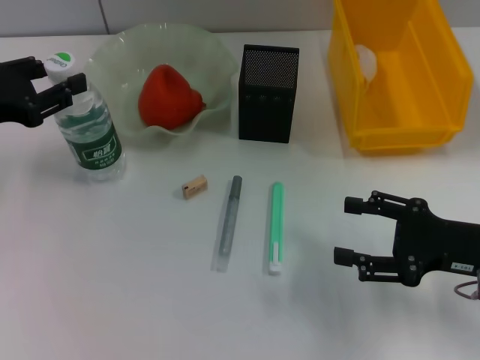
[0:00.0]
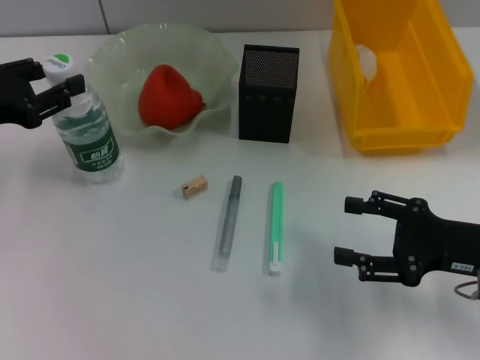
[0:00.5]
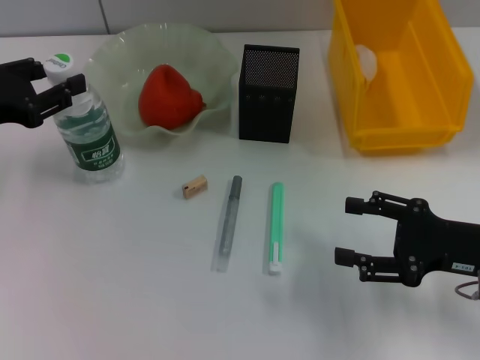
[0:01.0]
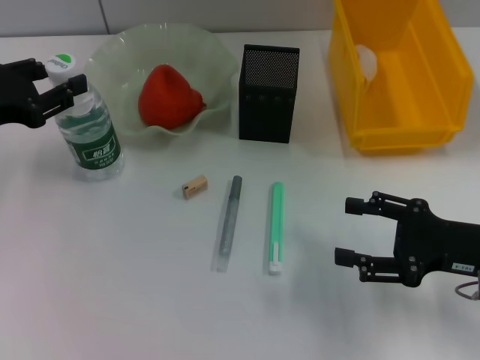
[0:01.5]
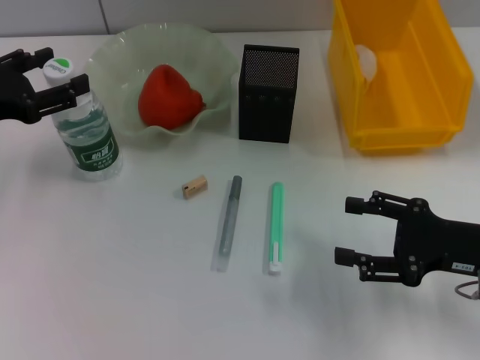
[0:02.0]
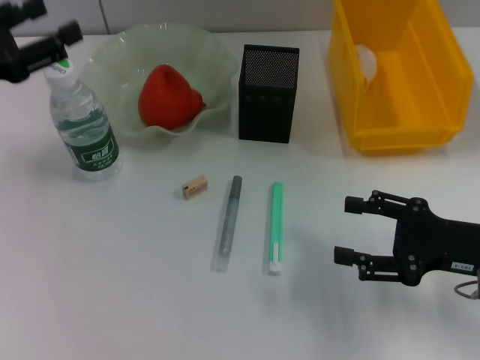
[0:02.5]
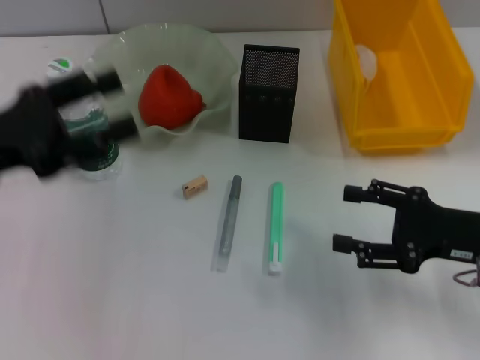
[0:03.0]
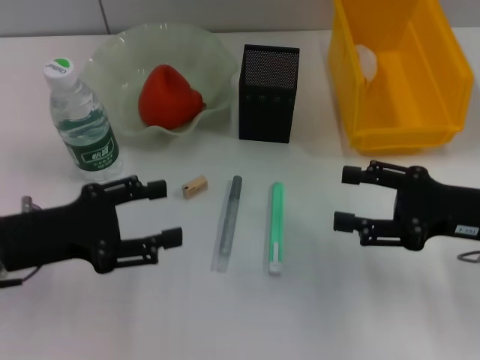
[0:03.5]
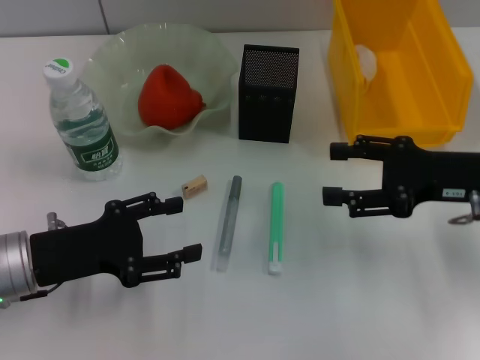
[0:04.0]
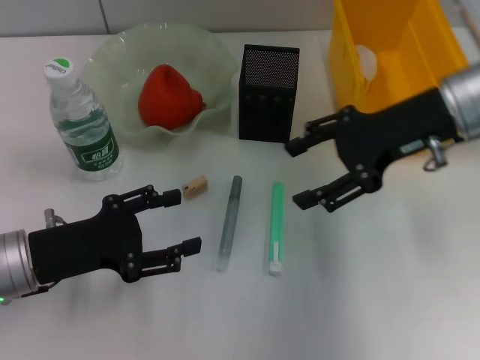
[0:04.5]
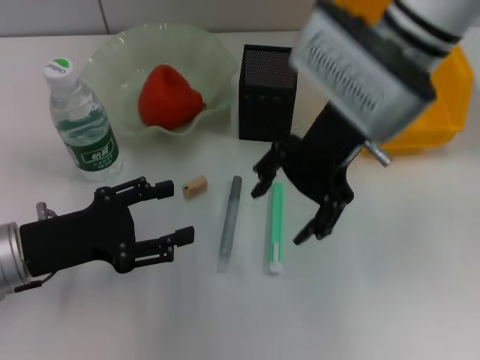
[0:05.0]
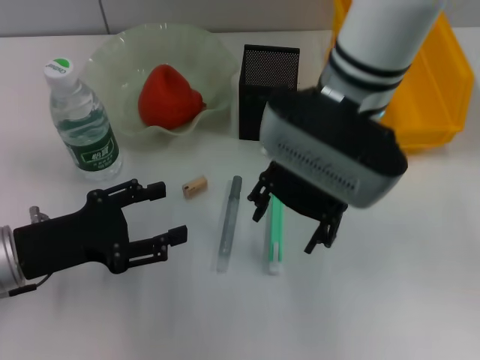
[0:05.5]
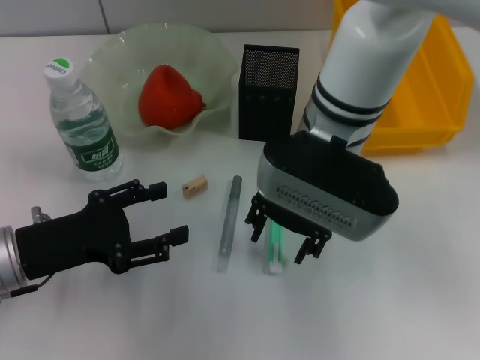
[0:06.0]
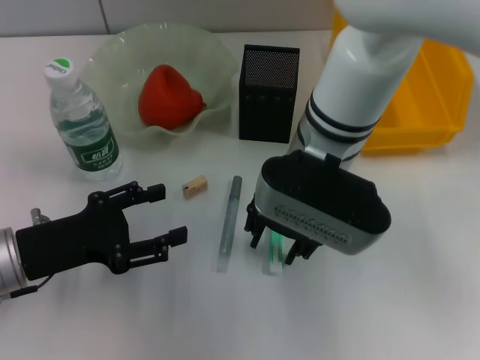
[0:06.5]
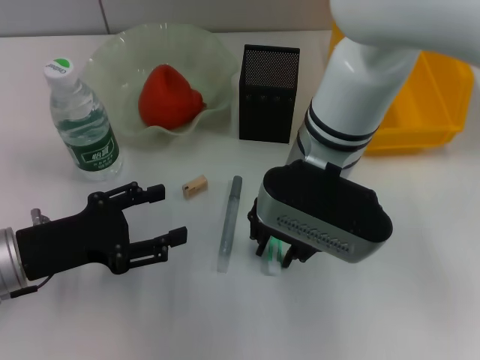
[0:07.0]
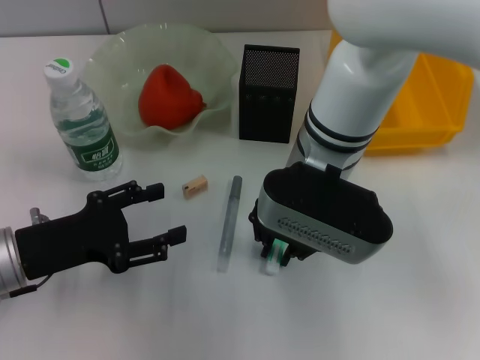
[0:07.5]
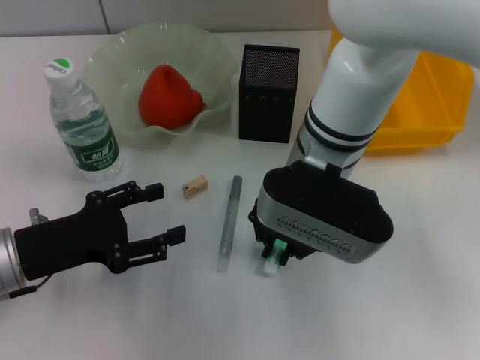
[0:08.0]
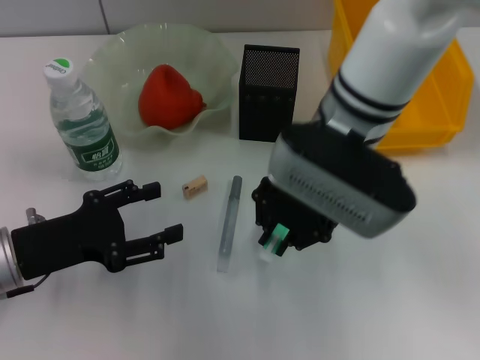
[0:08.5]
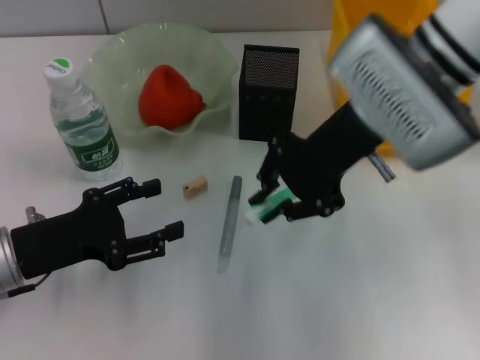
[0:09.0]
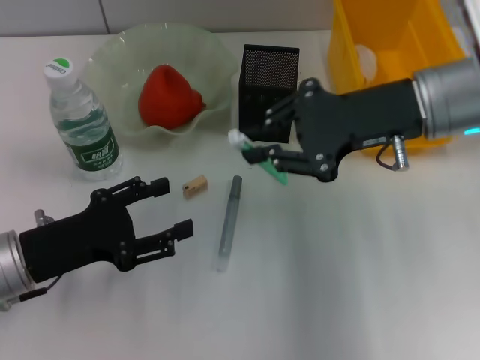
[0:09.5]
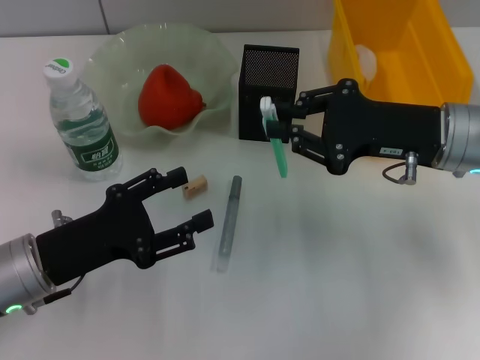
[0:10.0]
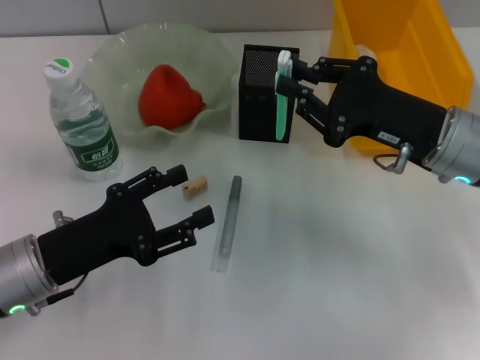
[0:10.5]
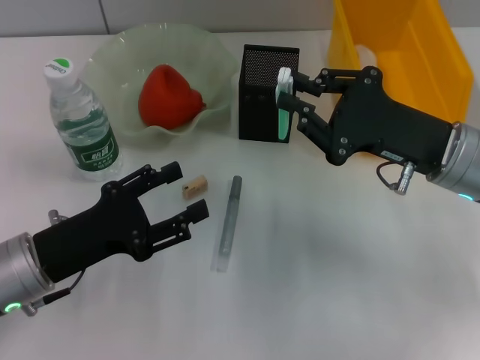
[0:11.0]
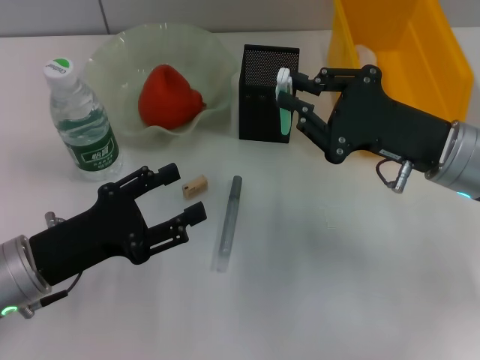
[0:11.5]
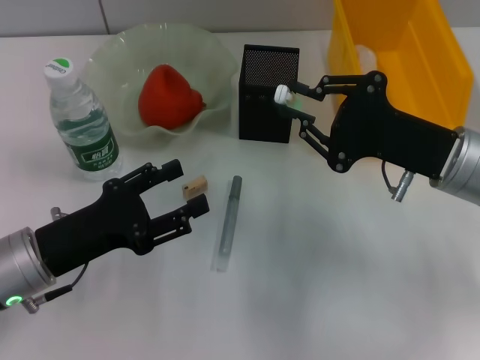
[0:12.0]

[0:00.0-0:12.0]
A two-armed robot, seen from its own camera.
Step, 0.0 to 2.0 s: Place the water bottle on the table with the left hand.
Step, 2.5 to 7.5 s: Grab the blue utility knife with the right hand.
0.0 to 2.0 s: Both grippers stay about where they are.
2.0 to 4.0 s: The left gripper is displaced downward, backward and to the right by some 15 cm; the right gripper is displaced forward by approximately 5 cm.
4.0 to 6.0 s: The right gripper heads to the left, covering roughly 20 cm.
6.0 to 8.0 s: The right gripper closes.
8.0 to 10.0 s: The right gripper travels to the right by some 15 cm.

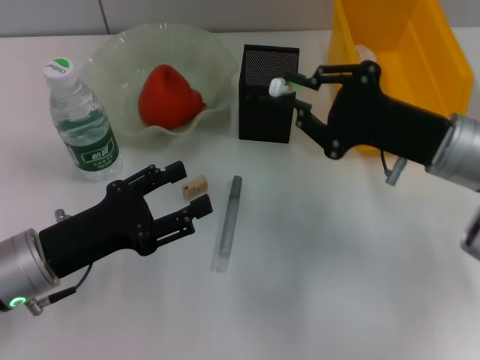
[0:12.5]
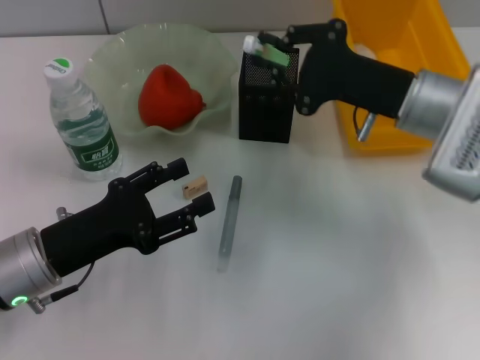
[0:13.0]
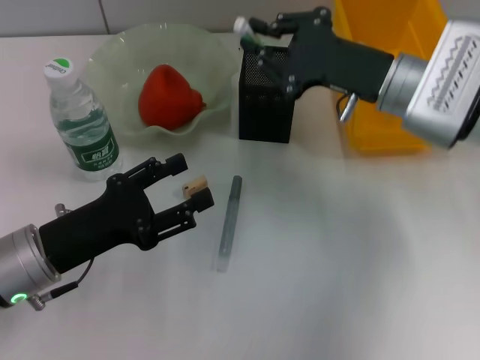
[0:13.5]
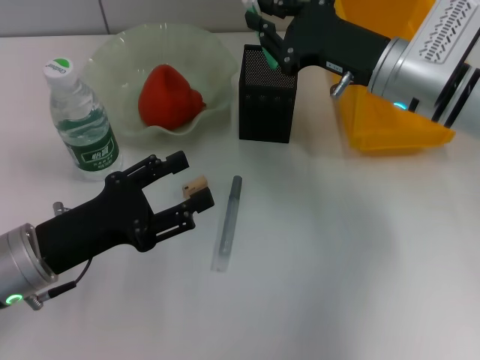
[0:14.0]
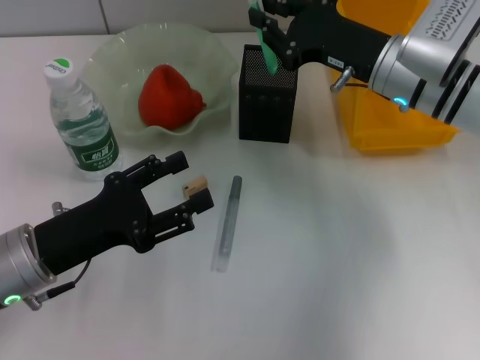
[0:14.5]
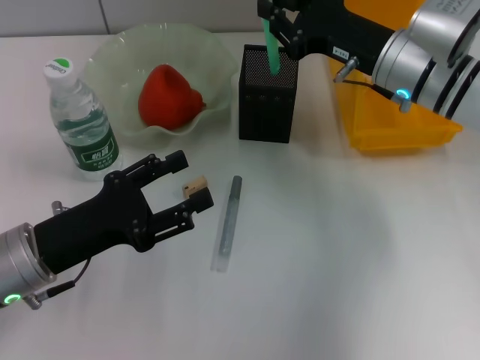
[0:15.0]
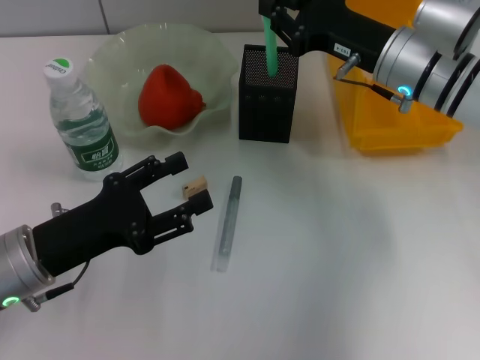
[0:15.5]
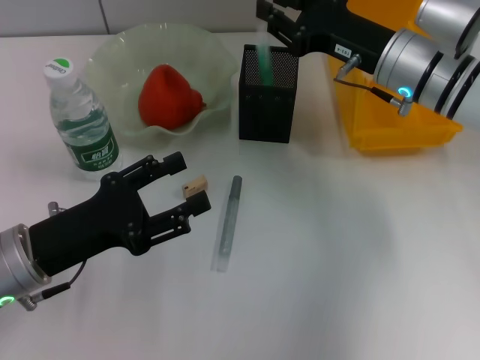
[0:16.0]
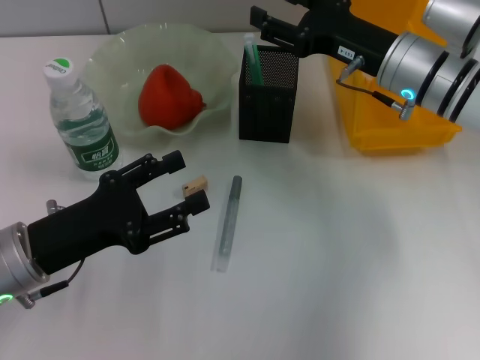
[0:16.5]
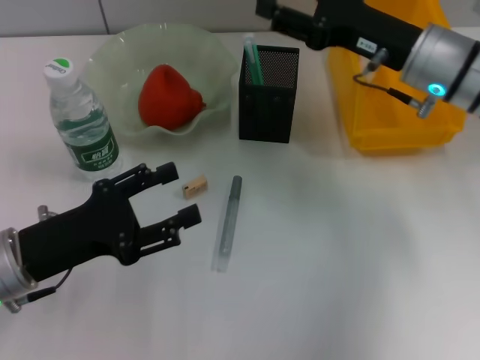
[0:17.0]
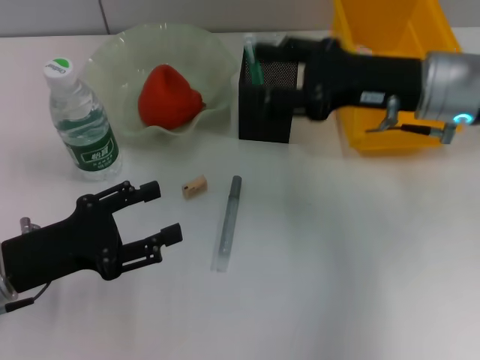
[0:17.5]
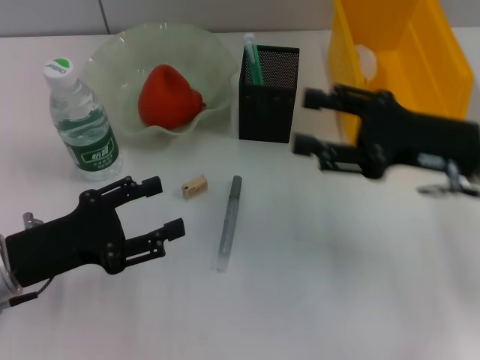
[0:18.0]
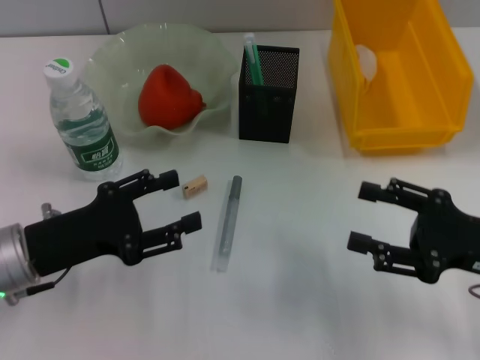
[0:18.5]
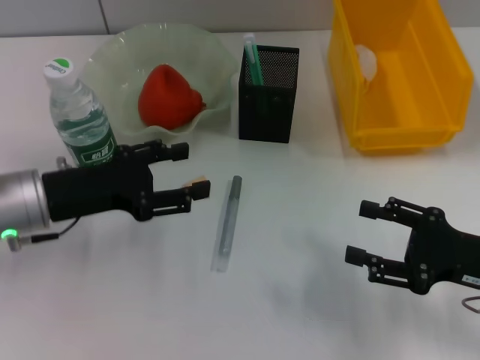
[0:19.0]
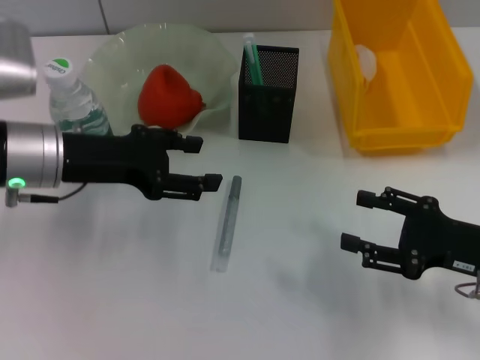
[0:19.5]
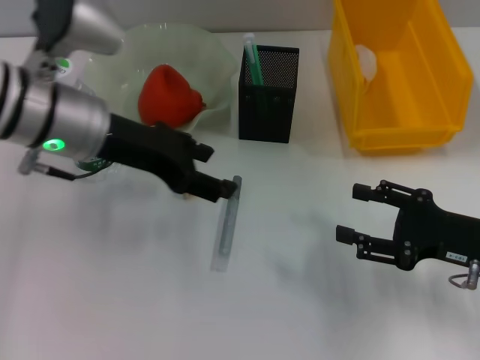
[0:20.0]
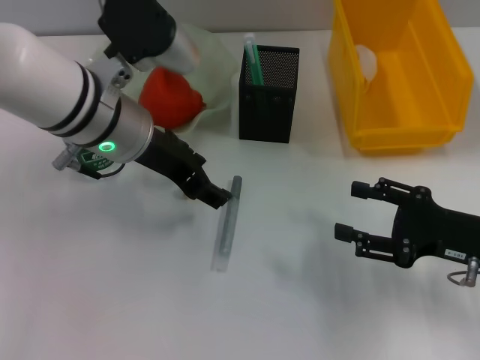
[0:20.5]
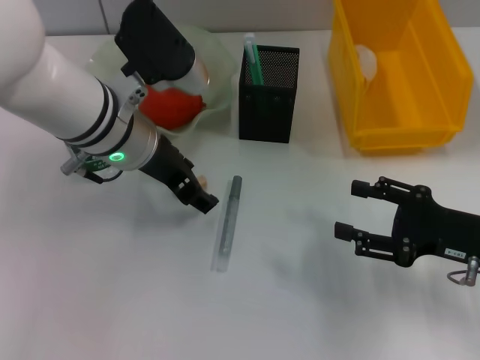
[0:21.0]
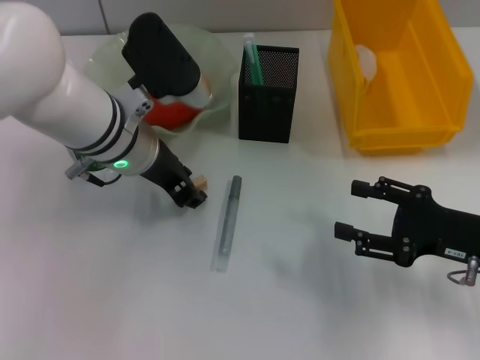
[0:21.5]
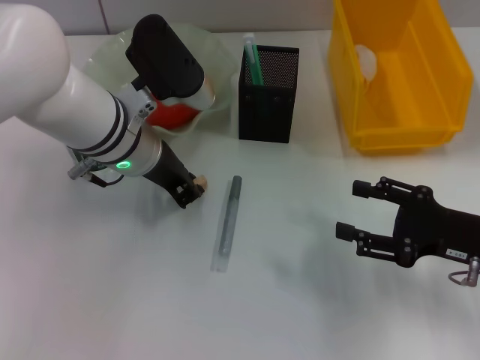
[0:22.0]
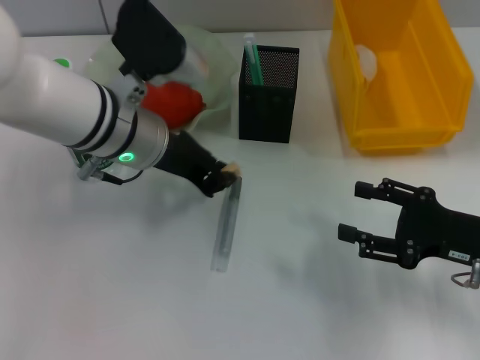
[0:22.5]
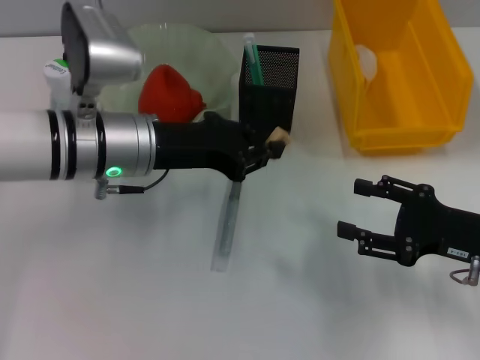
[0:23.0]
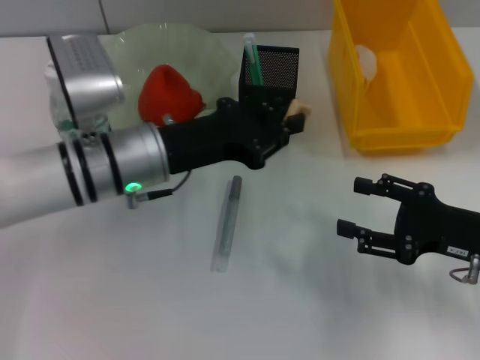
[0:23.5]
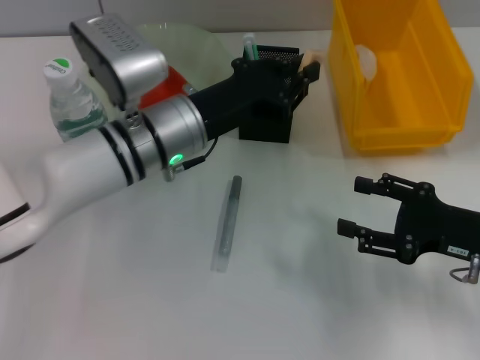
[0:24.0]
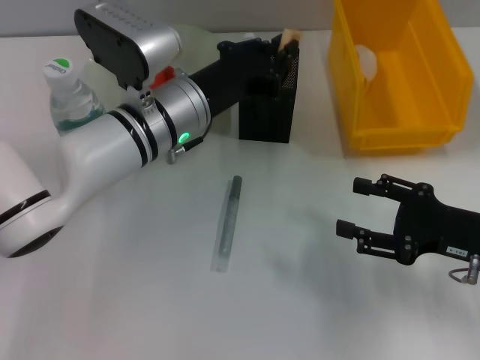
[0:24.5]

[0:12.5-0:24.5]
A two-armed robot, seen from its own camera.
Step, 12.5 to 16.0 s: Place the blue utility knife into the pen holder with the right hand.
Step, 16.5 to 22.0 s: Grab the eraser with the left hand.
12.5 to 14.5 s: The right gripper shifts some 10 cm forward.
14.5 to 16.5 s: The right gripper opens up.
16.5 to 18.5 s: The right gripper goes about 20 cm backward and to the right.
18.5 to 20.5 s: The left gripper heads to the right, forward and upward, covering roughly 20 cm.
20.5 to 22.5 s: The left gripper closes its fingers.

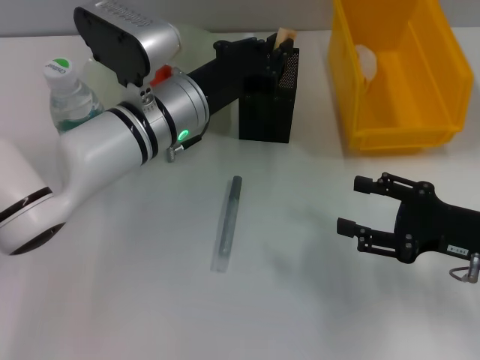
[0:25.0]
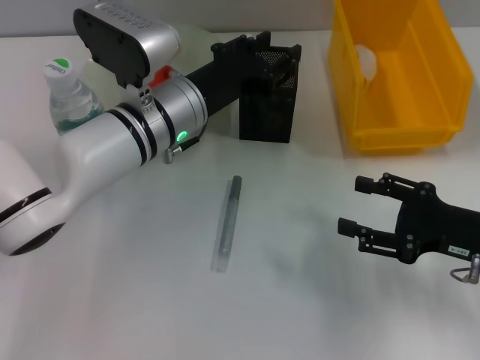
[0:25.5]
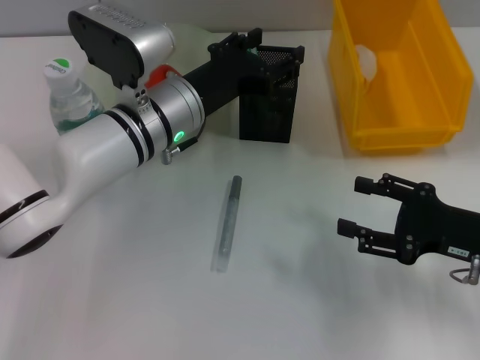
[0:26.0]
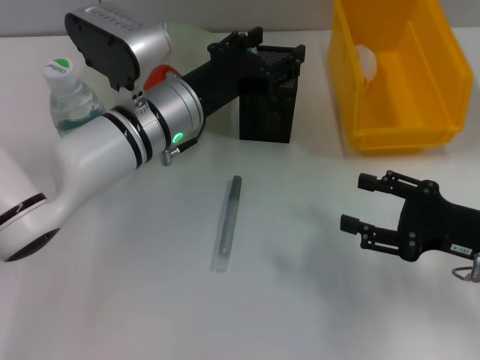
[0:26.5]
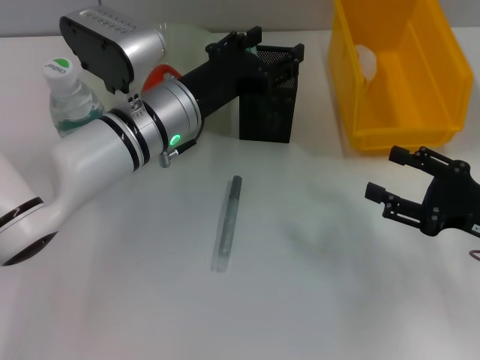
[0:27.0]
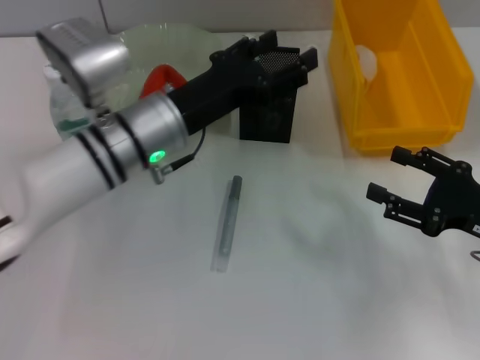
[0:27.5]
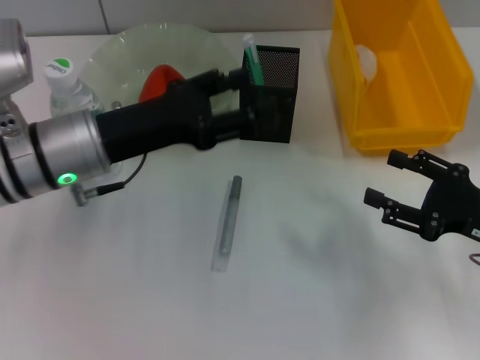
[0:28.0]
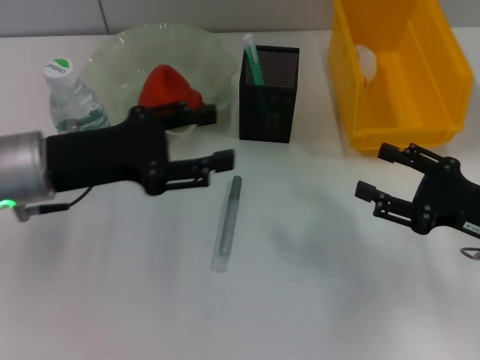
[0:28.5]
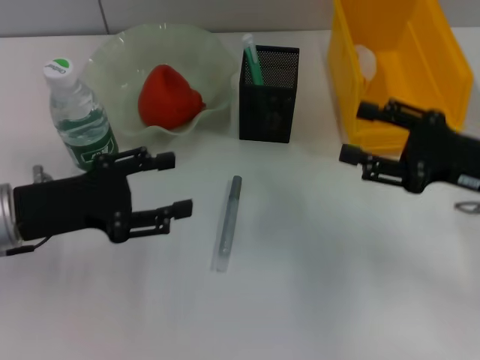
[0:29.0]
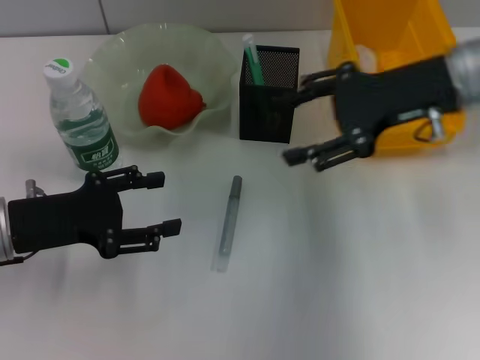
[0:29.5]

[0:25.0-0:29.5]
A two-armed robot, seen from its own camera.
25.0 to 27.0 s: The left gripper opens.
27.0 to 29.5 s: The right gripper heads forward, upward and to the left, covering approximately 20 cm. Meanwhile the left gripper heads to the left and backward, covering roughly 20 cm.
